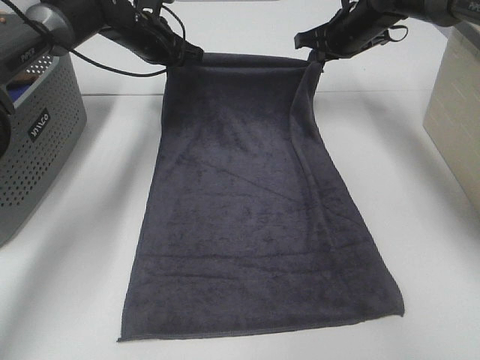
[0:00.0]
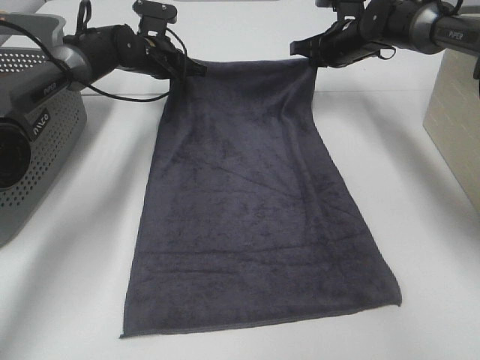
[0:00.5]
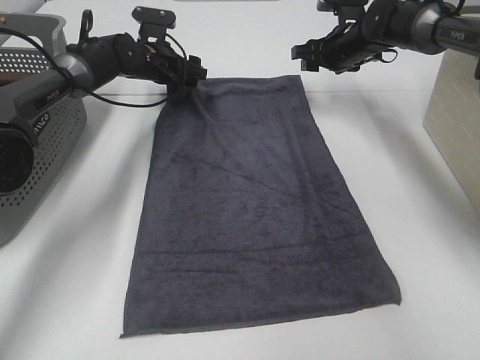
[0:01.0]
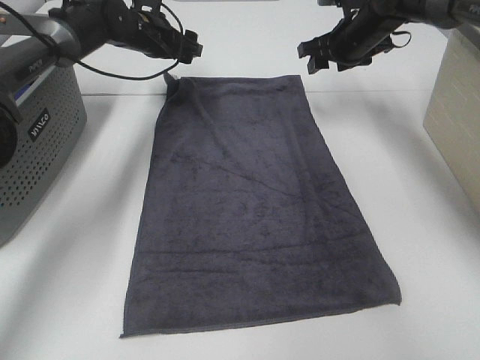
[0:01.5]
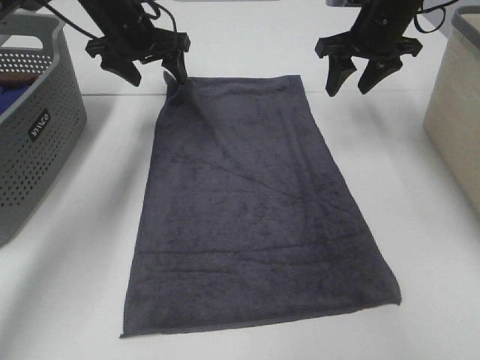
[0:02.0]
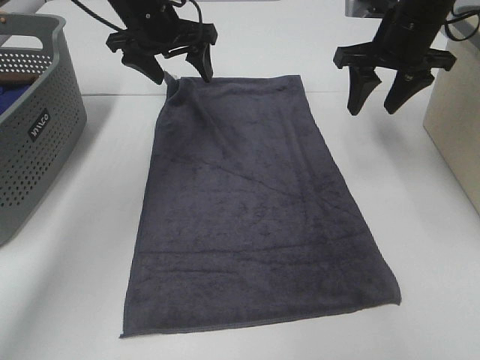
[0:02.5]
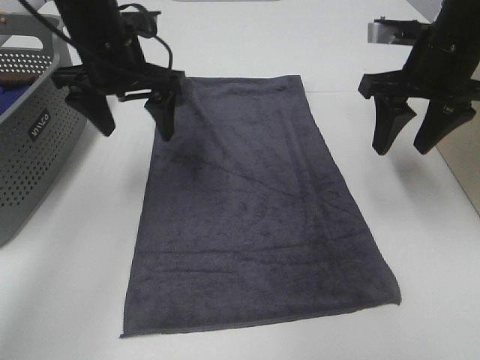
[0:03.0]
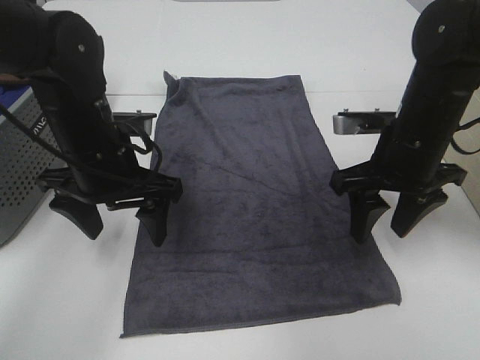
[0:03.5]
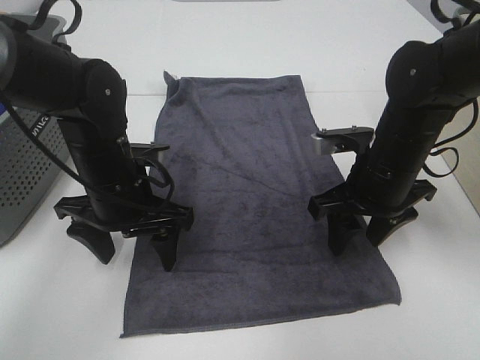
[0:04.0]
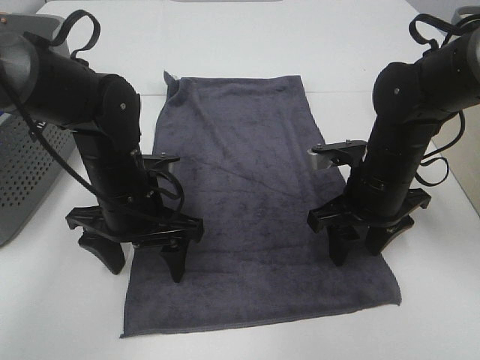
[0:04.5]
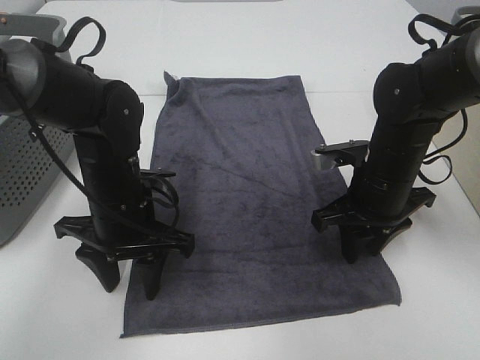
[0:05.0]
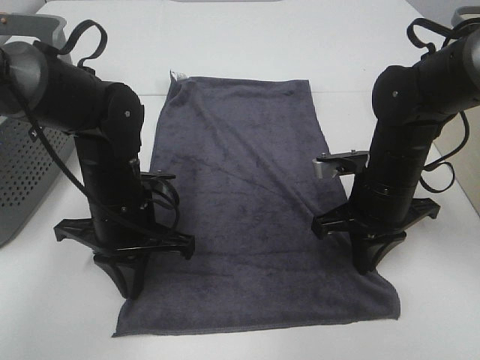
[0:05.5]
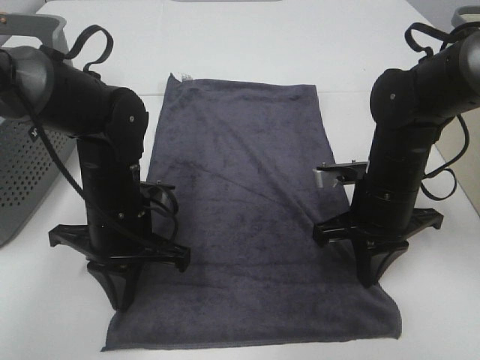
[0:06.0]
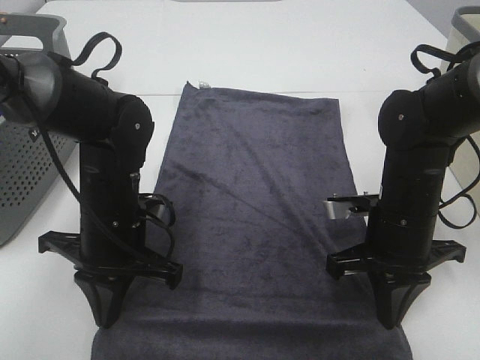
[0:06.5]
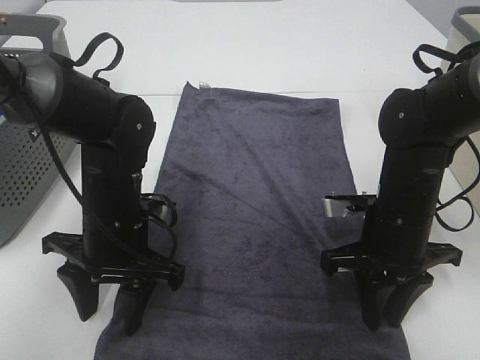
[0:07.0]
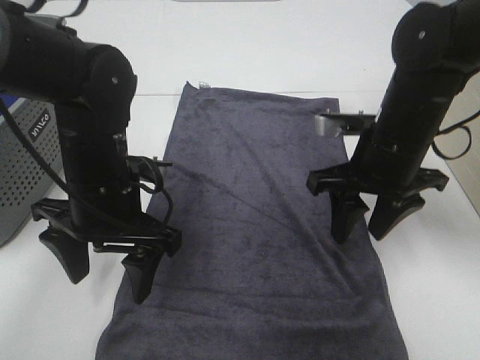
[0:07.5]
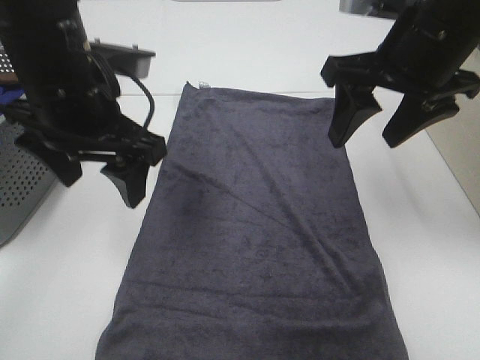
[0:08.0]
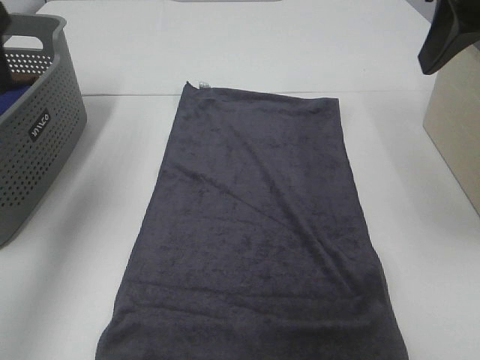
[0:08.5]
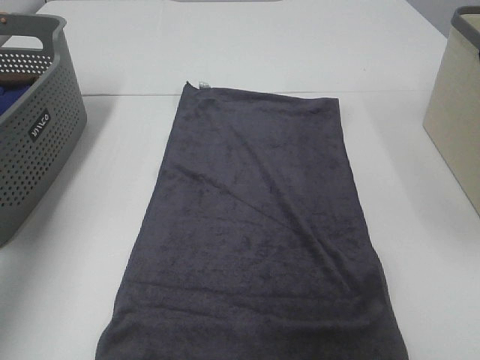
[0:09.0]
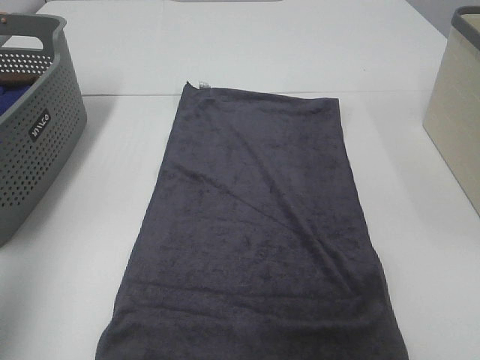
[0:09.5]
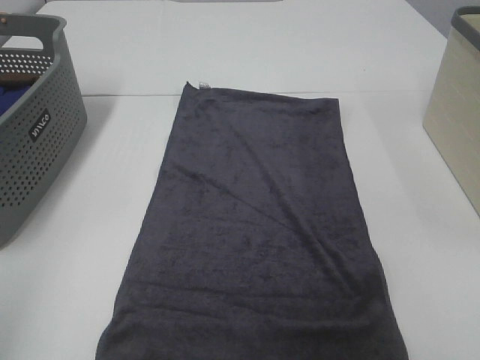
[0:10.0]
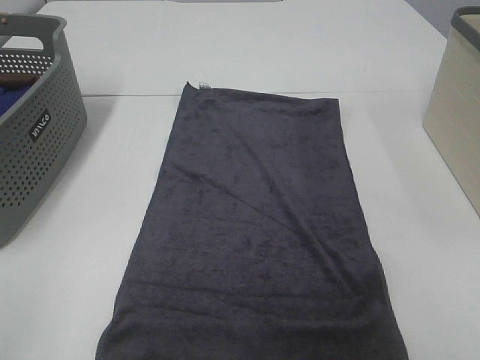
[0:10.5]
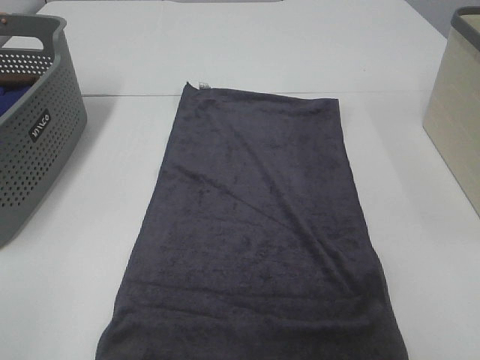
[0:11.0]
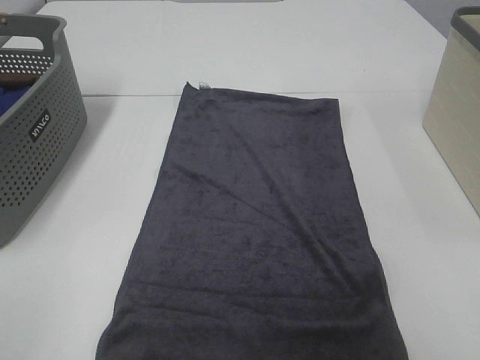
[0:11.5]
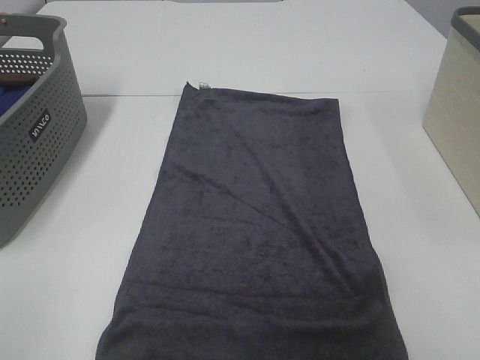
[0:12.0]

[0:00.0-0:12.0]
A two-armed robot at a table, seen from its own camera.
Task of the whole recording: Remove the towel and place it.
0:00.0 to 0:02.0: The right gripper goes about 5 cm backward, and opens its fingers. Meanwhile the left gripper moves some 5 cm, and opens.
0:02.0 to 0:04.0: Both grippers move backward and downward, approximately 20 cm.
0:04.0 to 0:06.0: The left gripper closes. Meanwhile the right gripper closes.
0:06.0 to 0:08.0: The grippers both shift upward by approximately 20 cm. The left gripper opens up; the right gripper opens.
0:08.0 to 0:10.0: The left gripper is displaced backward and to the left by about 30 cm; the right gripper travels backward and to the right by about 30 cm.

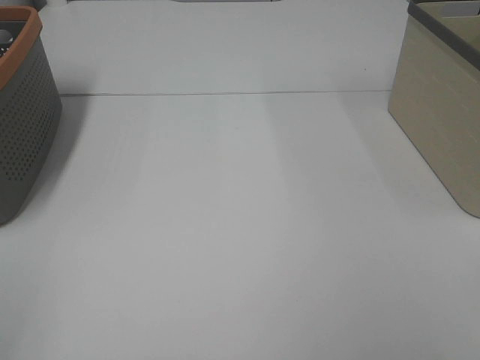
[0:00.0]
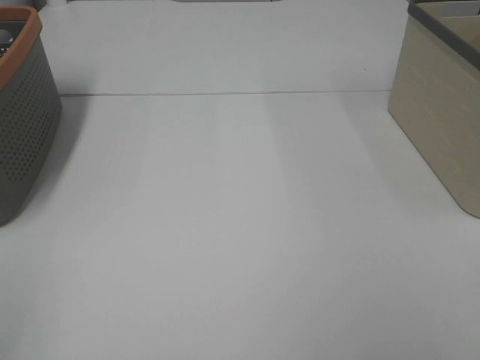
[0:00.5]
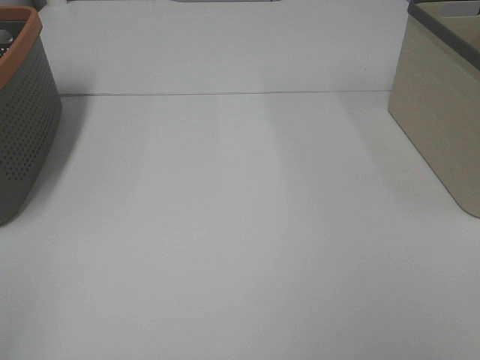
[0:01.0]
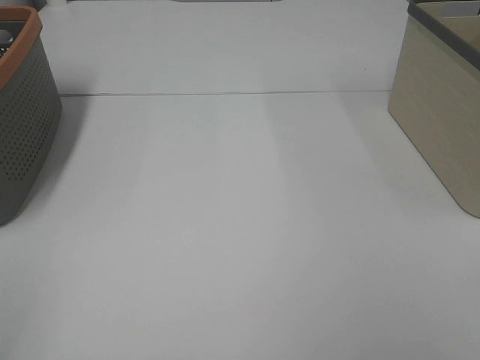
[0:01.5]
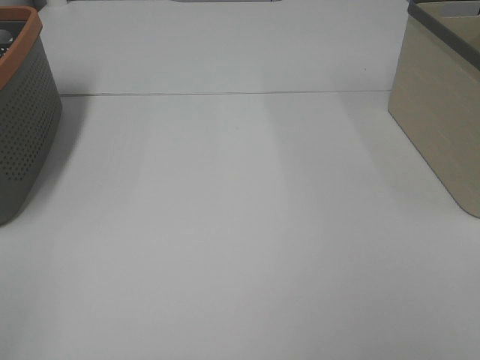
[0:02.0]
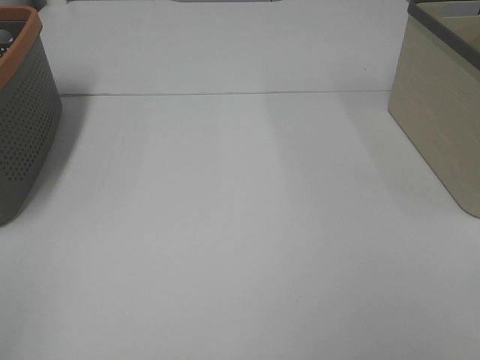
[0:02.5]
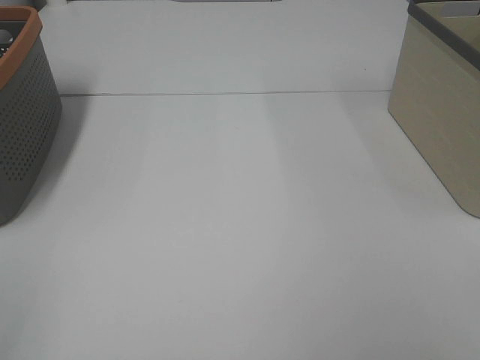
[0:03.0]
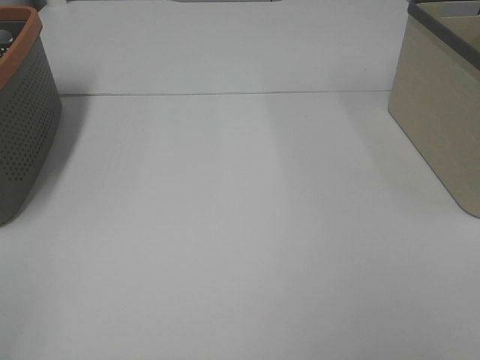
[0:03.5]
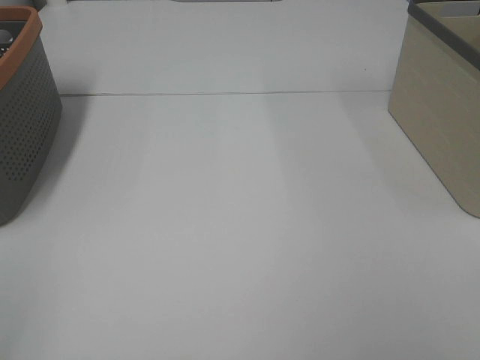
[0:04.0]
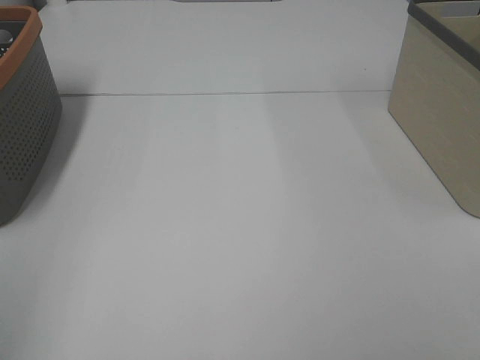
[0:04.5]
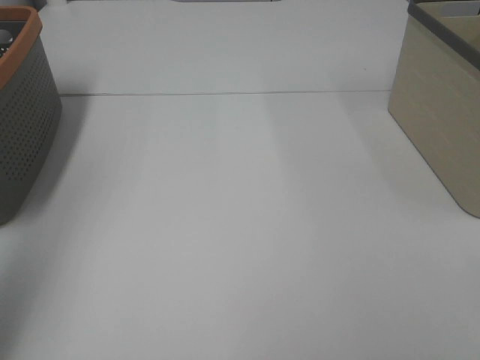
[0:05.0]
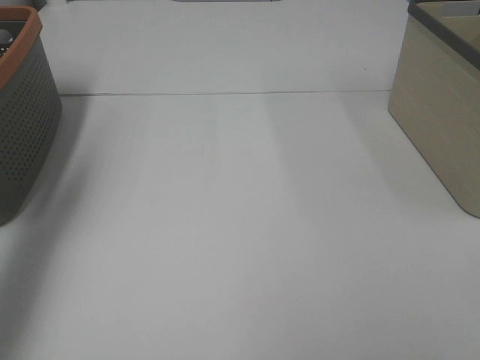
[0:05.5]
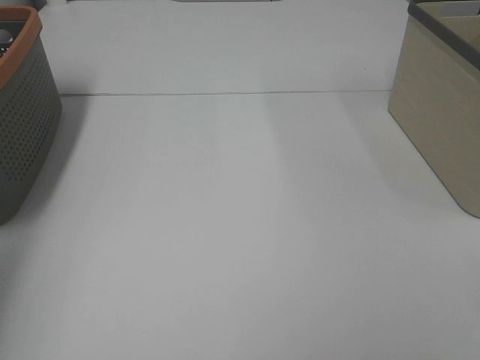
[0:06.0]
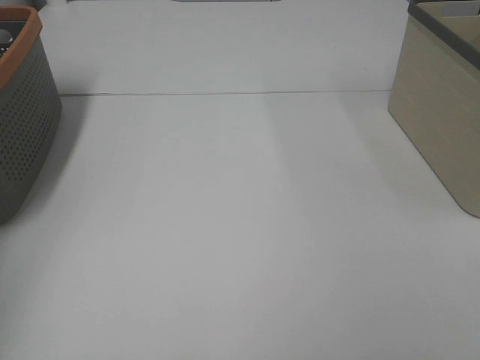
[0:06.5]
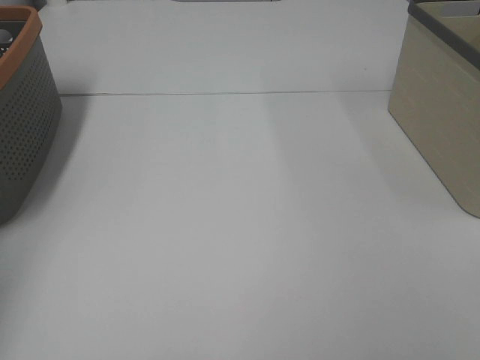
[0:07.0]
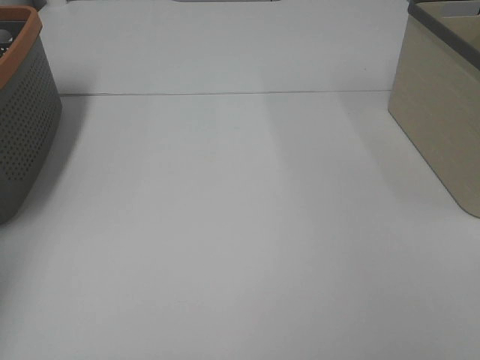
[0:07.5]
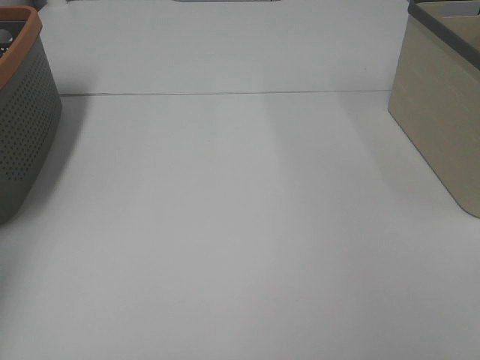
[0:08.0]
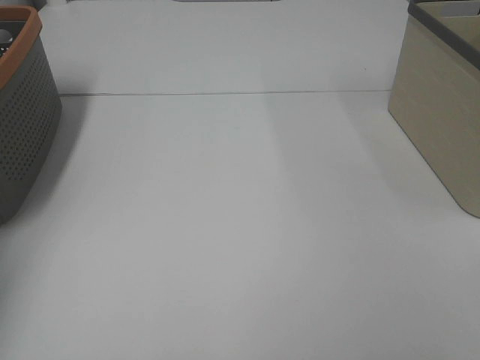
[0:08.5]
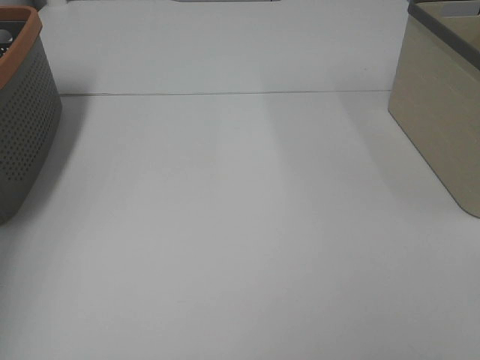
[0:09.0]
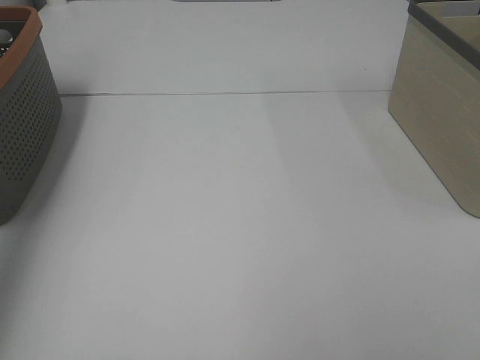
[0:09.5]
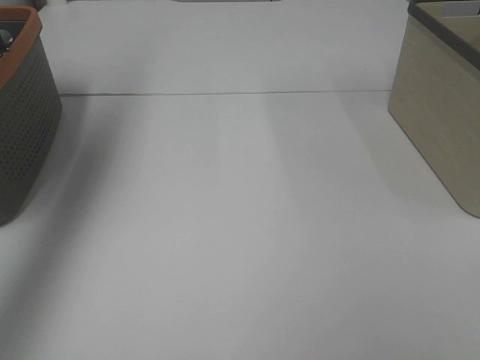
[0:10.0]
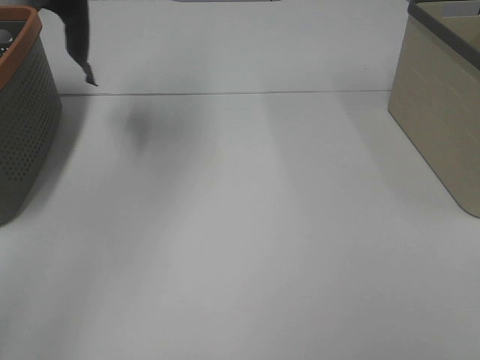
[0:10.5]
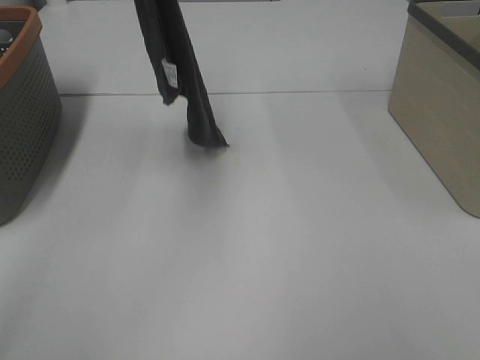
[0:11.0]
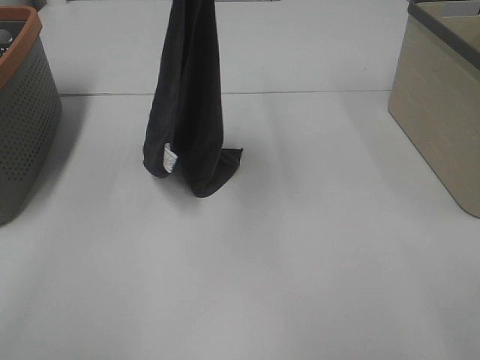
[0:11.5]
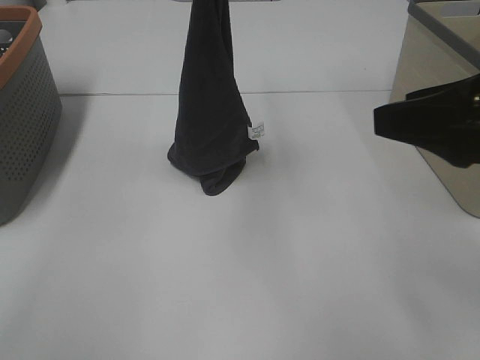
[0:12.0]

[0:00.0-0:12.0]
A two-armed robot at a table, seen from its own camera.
Task of the whole recording: Remove the towel and place it.
0:00.0 to 0:04.0: The two grippers keep their place.
0:04.0 to 0:06.0: The left gripper shifts approximately 30 cm forward.
0:08.0 to 0:10.0: The left gripper heads upward, covering roughly 40 cm.
0:10.0 to 0:12.0: The right gripper heads forward, covering some 20 cm. Meanwhile the left gripper heads to the right and downward, covering about 35 cm.

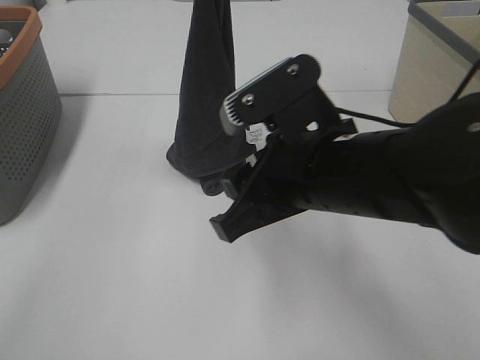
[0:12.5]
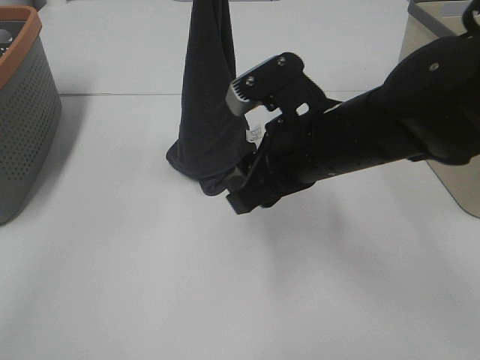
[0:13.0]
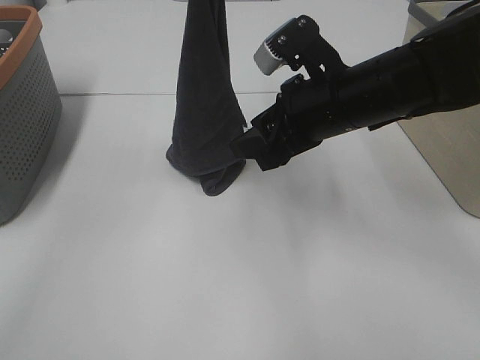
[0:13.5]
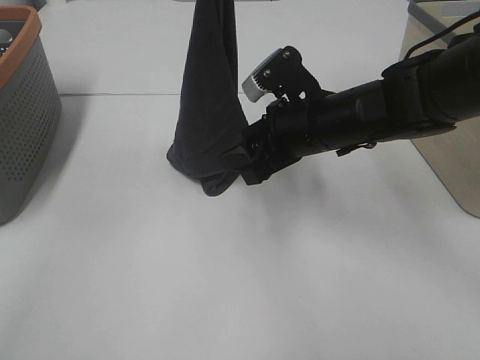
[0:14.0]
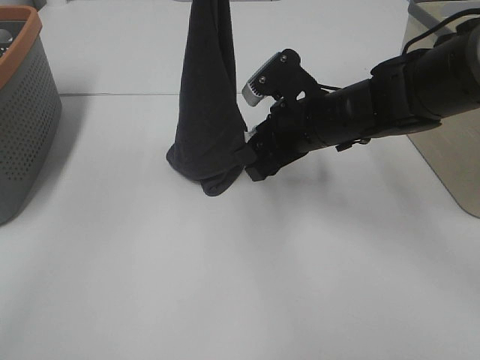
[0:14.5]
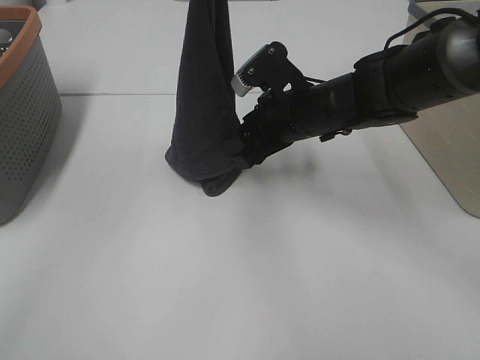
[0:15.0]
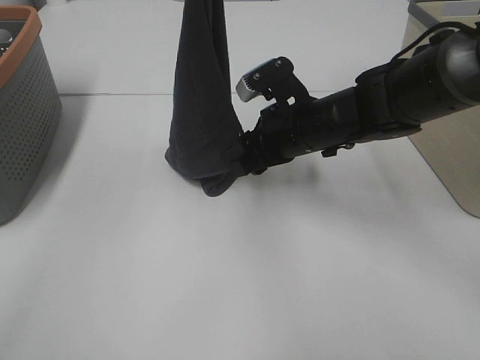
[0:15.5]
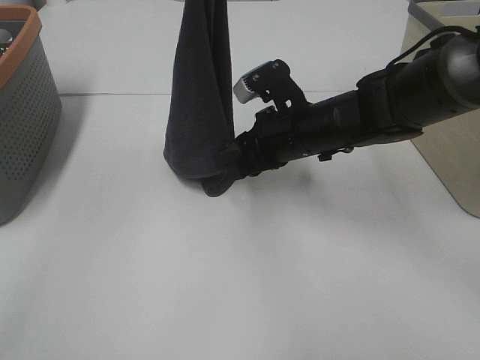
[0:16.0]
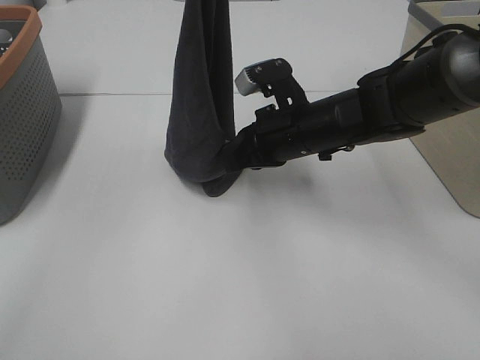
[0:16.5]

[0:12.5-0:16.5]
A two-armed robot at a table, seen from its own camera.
Task of the whole recording: Remove the towel and place it.
Step, 0:12.5 to 0:14.5: Right hand: grab a corner of the grey towel and straighten it.
0:12.5 to 0:14.5: The right gripper travels forward and downward by some 15 cm.
0:14.5 to 0:16.5: The right gripper closes its fingers.
